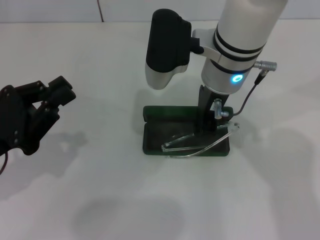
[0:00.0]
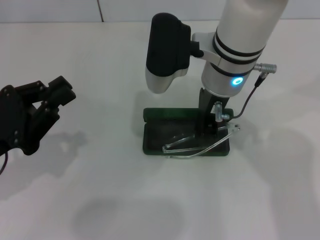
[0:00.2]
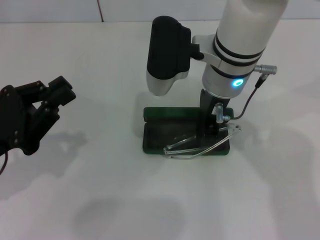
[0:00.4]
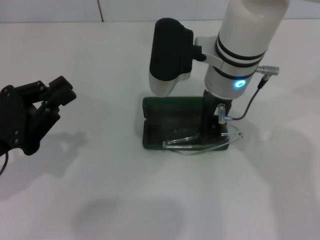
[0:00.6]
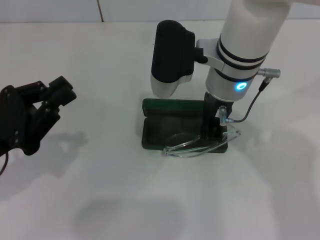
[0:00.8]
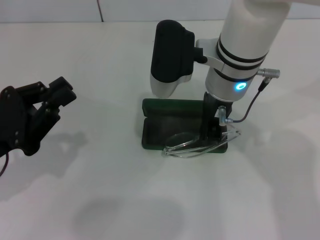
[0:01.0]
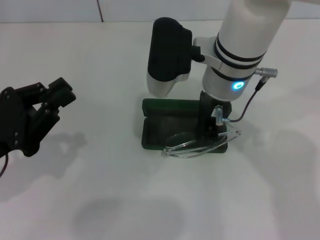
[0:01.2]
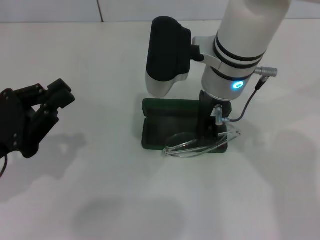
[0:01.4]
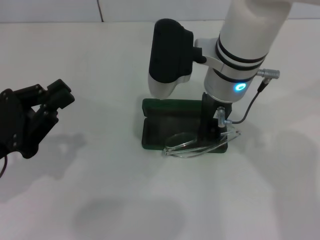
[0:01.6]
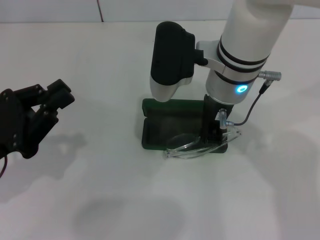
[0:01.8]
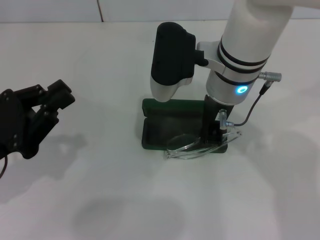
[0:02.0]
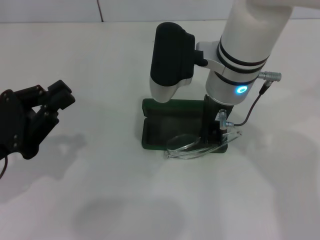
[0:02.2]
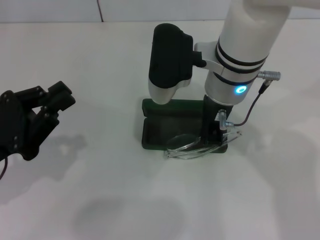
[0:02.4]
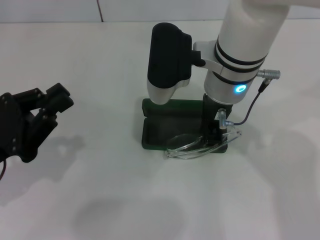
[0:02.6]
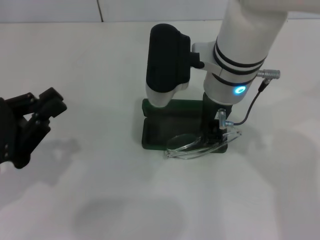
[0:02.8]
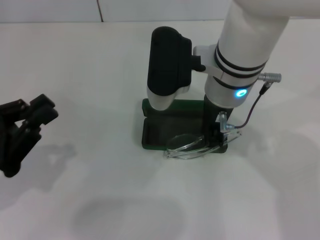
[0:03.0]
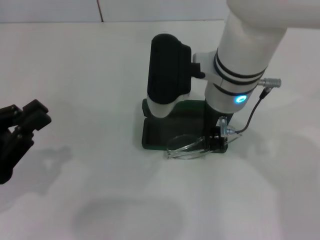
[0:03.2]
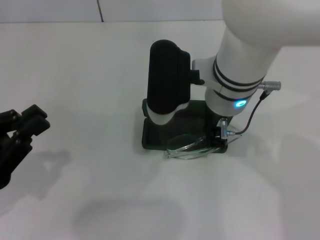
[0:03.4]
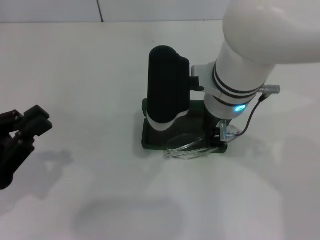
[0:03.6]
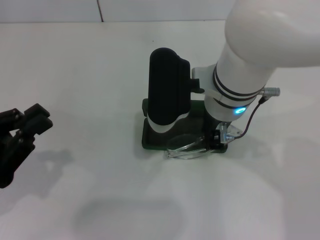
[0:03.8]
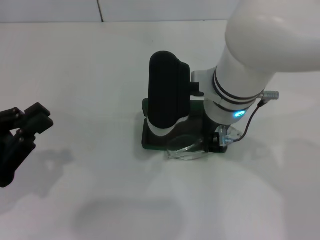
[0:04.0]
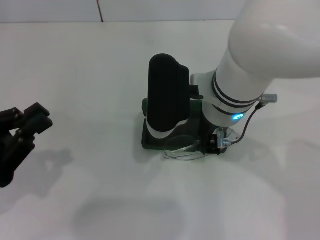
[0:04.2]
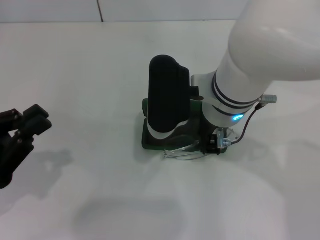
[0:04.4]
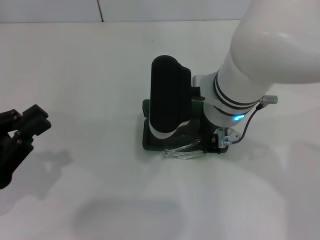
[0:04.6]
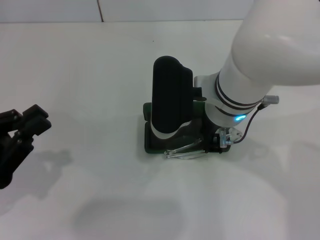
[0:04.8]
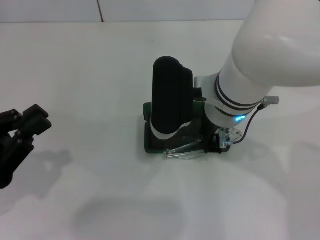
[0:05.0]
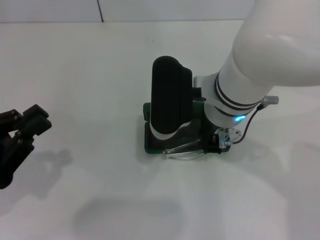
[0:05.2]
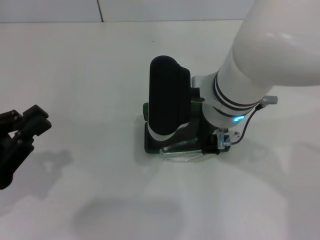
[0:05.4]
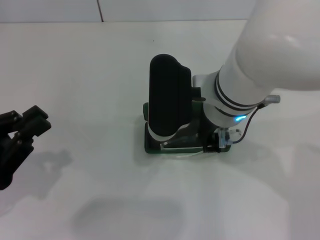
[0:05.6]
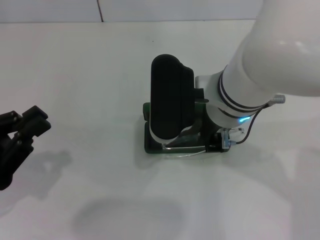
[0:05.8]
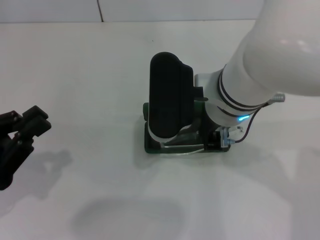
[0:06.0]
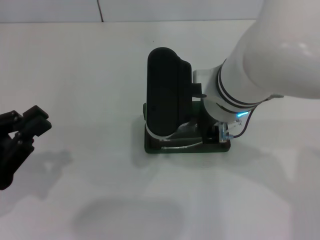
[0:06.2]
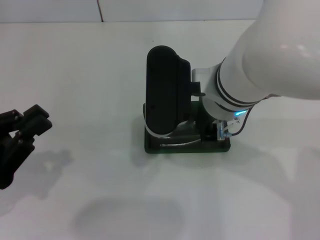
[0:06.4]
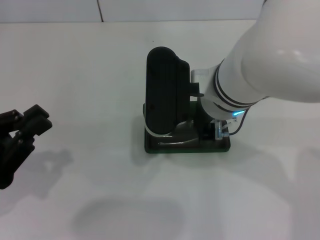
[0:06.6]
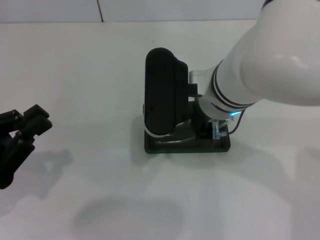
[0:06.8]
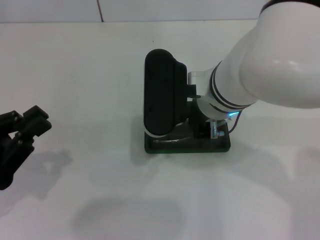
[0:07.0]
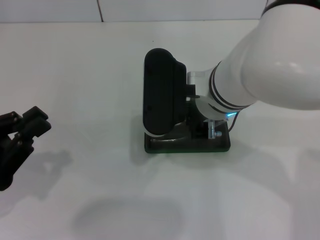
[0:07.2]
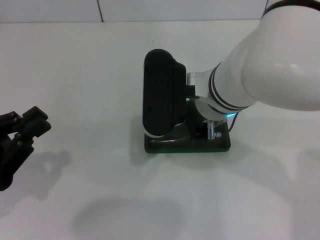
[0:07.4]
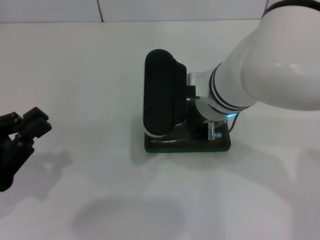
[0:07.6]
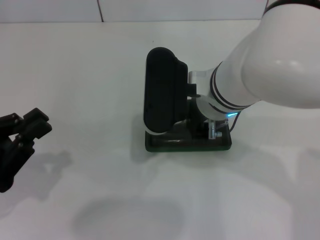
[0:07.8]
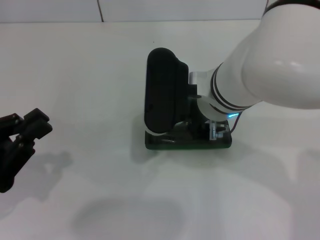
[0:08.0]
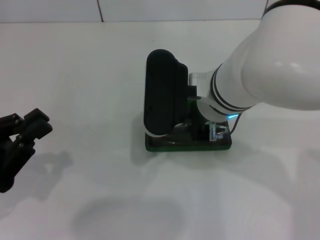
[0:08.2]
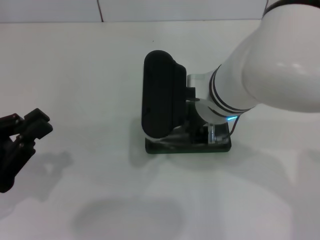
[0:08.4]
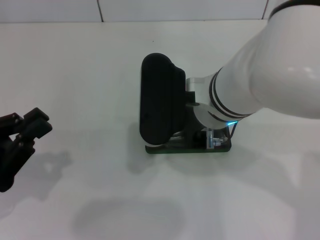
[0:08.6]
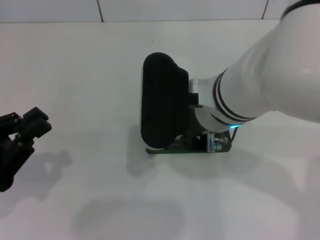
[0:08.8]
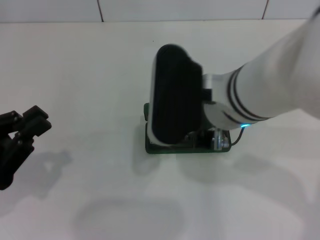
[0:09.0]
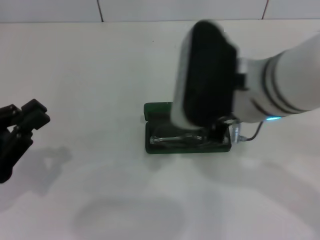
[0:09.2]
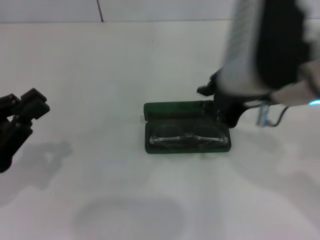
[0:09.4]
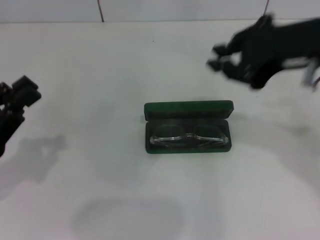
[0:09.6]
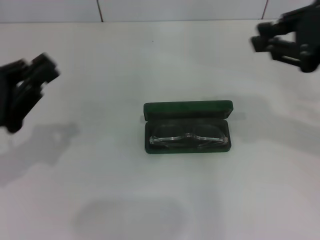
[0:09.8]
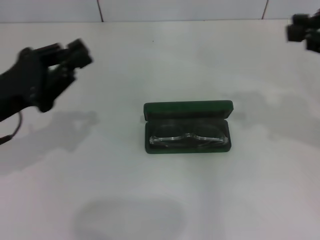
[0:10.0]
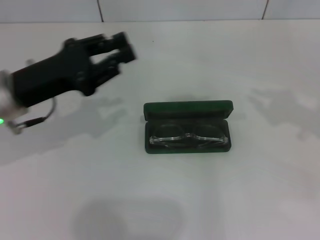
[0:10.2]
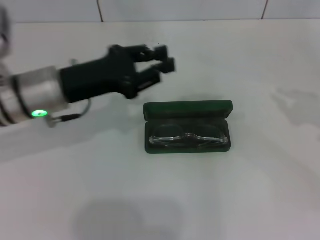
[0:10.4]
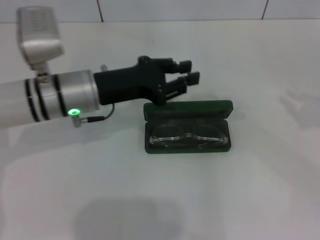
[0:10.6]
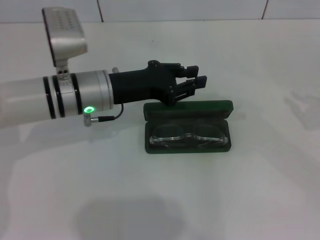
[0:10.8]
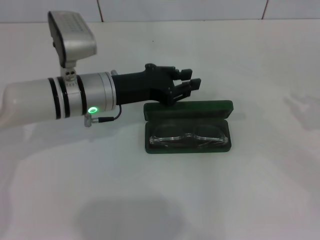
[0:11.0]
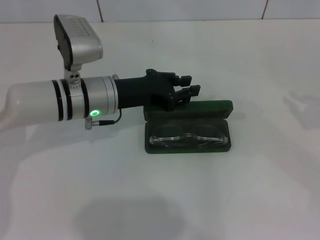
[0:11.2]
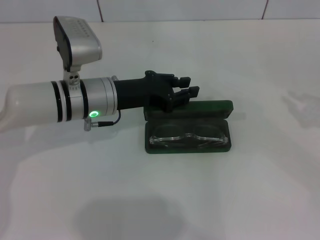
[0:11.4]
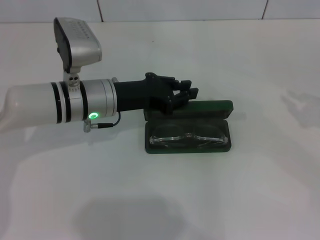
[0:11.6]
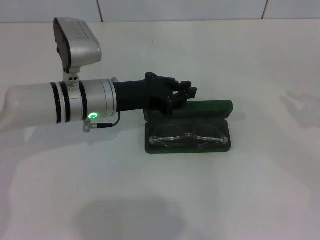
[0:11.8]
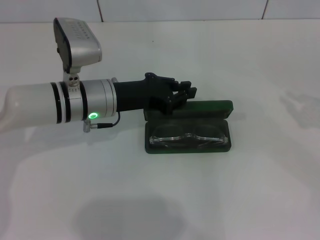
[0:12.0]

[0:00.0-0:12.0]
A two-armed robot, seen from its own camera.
Step, 0:00.0 to 0:08.4: Put the glasses into the case with your right hand.
0:00.0 to 0:01.6: The two grippers keep their place.
0:01.6 to 0:06.0: The grippers make only small movements.
0:06.0 to 0:09.0: There are only small adjustments of the grippers.
0:09.0 to 0:10.4: The right gripper goes some 30 cm to the right, while the left gripper heads forward and to the right, covering roughly 20 cm.
0:10.4 to 0:12.0: The left gripper heads to the right, covering roughly 5 cm. Meanwhile the right gripper moves downward, roughly 5 cm.

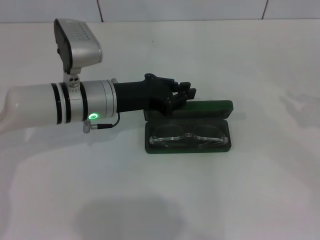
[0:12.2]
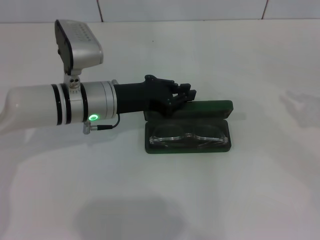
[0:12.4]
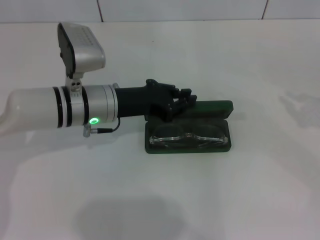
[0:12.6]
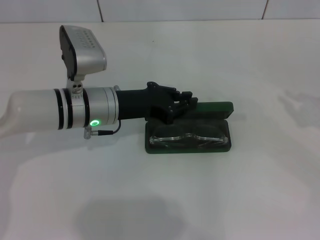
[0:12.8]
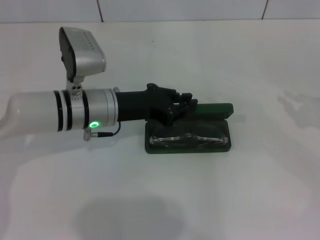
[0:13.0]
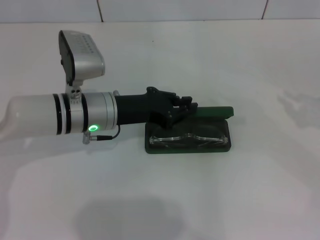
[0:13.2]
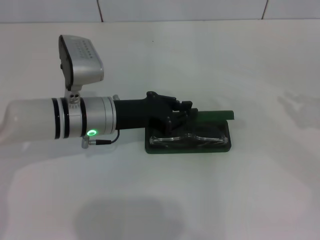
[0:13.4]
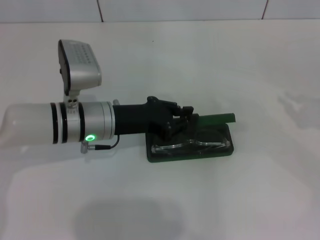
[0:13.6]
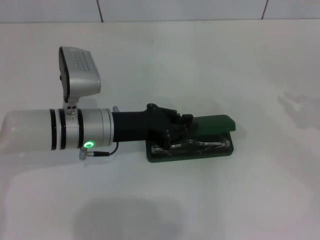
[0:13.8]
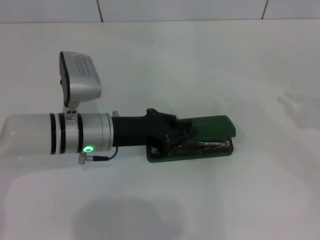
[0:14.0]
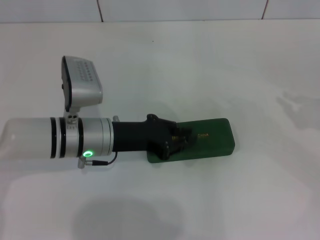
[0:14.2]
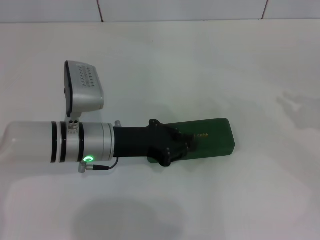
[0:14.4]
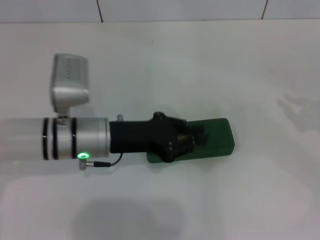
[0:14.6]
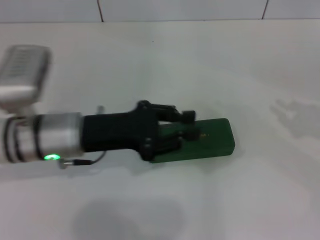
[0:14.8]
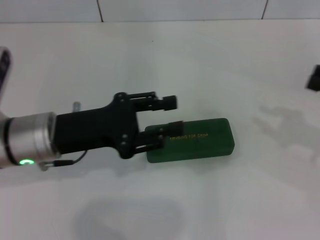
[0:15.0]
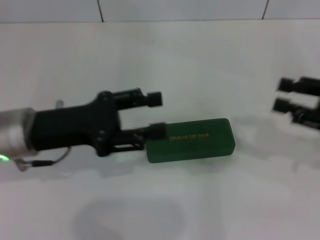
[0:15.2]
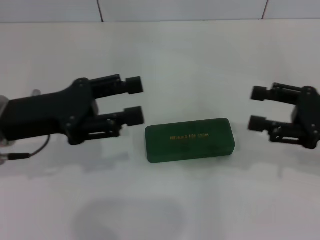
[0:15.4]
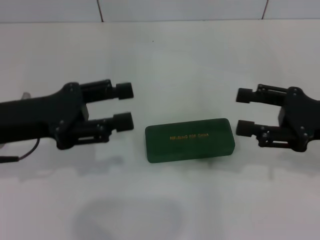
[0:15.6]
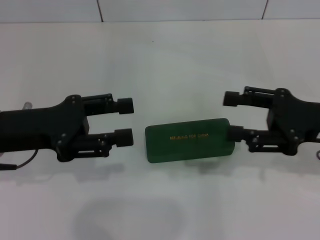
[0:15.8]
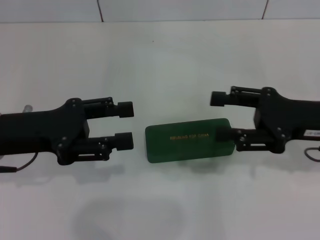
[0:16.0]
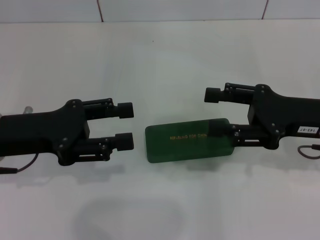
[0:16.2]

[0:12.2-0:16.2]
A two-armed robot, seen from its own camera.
Step, 0:12.2 to 0:14.2: Close the glasses case with your left hand.
0:12.2 to 0:13.6: The grippers make only small movements.
0:13.6 to 0:14.8: The left gripper changes place by approximately 5 cm.
0:14.8 to 0:16.2: The left gripper goes approximately 10 cm to the left, and opens its fingers, while the right gripper travels to the left by roughly 15 cm, and opens.
